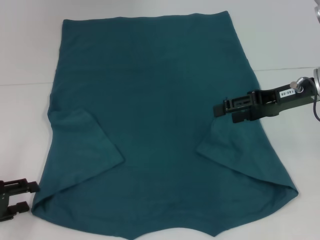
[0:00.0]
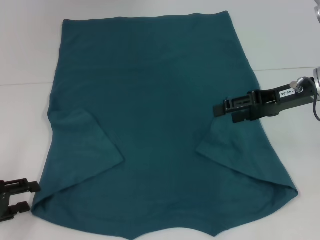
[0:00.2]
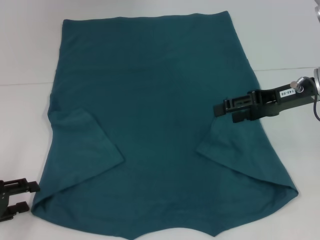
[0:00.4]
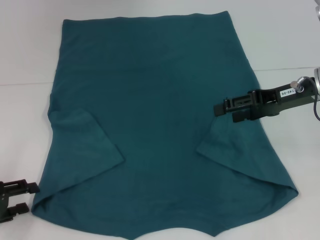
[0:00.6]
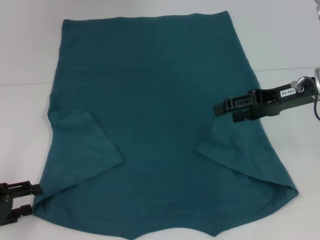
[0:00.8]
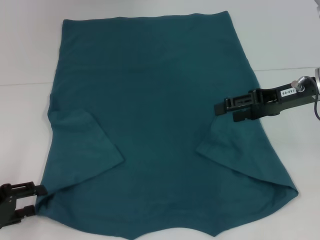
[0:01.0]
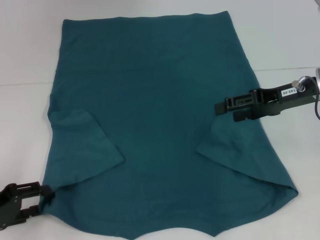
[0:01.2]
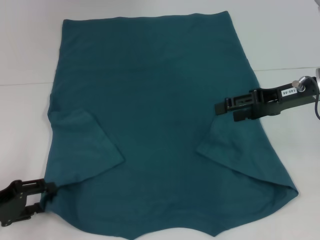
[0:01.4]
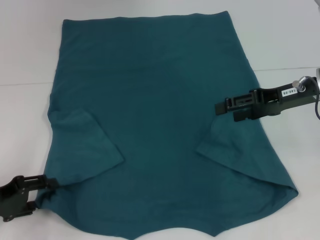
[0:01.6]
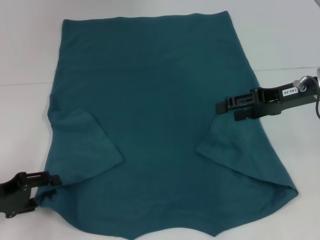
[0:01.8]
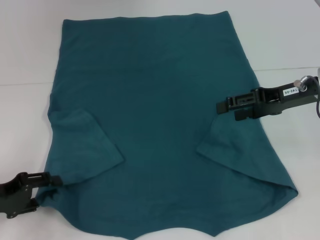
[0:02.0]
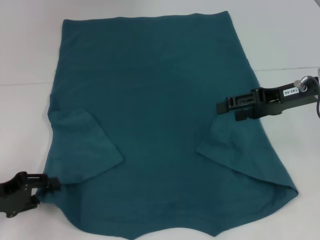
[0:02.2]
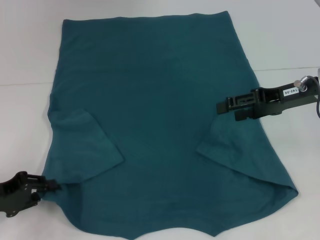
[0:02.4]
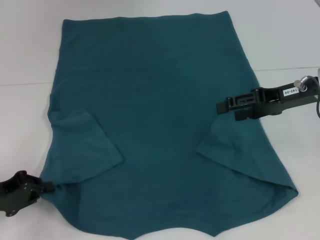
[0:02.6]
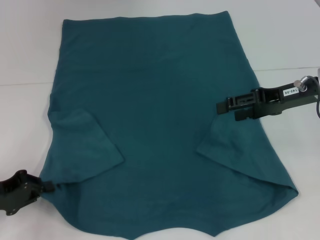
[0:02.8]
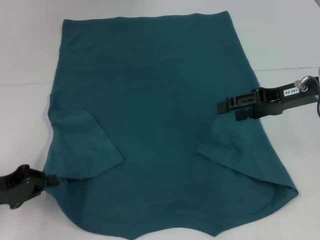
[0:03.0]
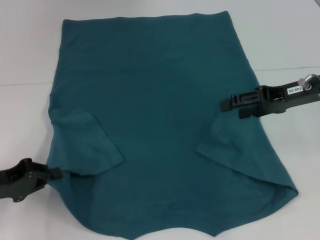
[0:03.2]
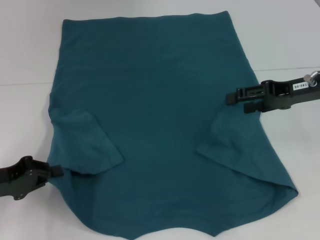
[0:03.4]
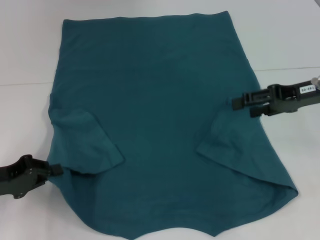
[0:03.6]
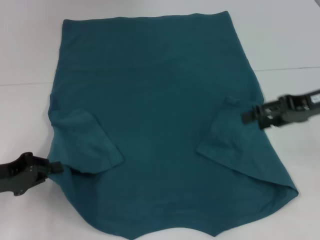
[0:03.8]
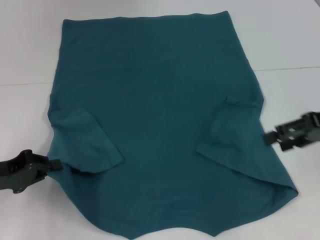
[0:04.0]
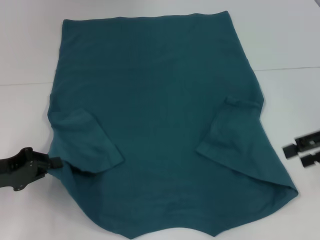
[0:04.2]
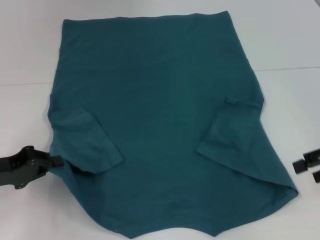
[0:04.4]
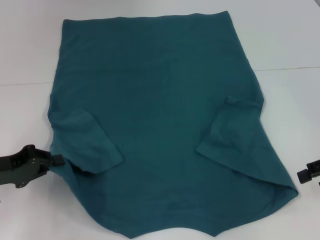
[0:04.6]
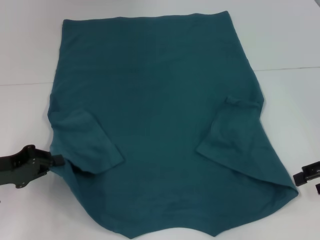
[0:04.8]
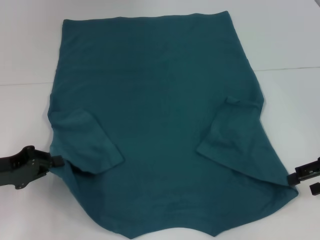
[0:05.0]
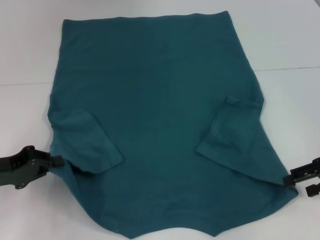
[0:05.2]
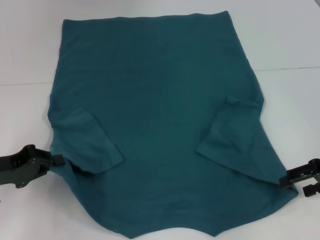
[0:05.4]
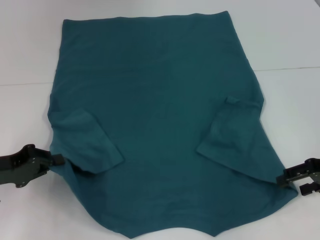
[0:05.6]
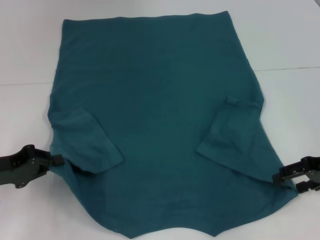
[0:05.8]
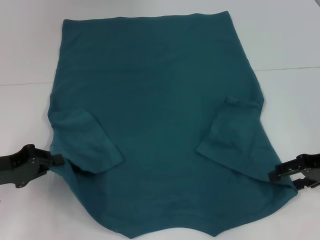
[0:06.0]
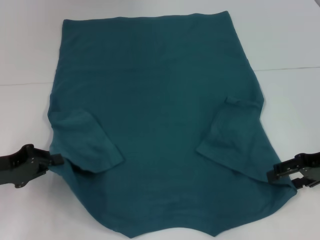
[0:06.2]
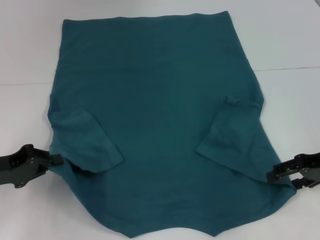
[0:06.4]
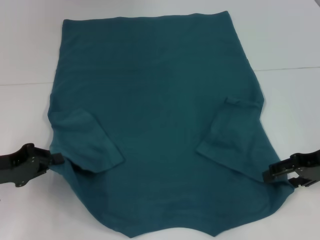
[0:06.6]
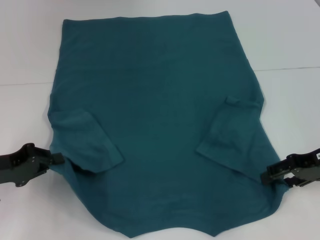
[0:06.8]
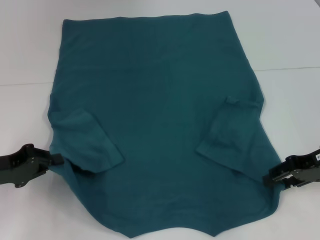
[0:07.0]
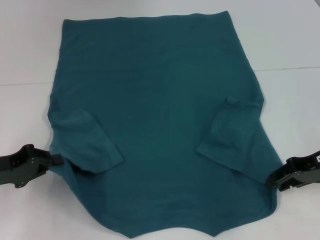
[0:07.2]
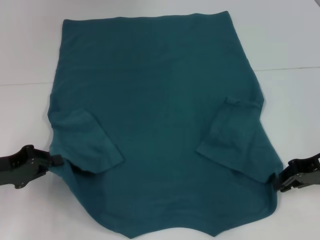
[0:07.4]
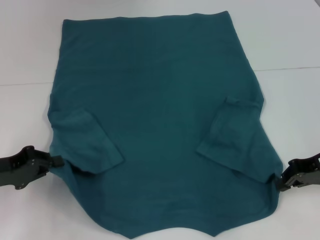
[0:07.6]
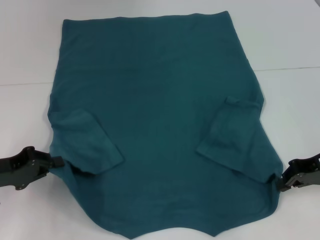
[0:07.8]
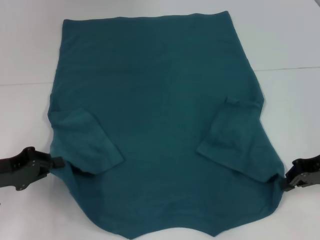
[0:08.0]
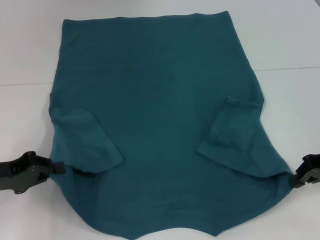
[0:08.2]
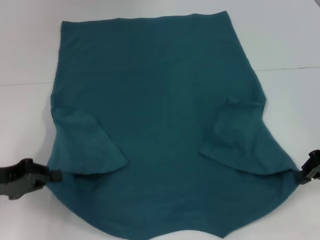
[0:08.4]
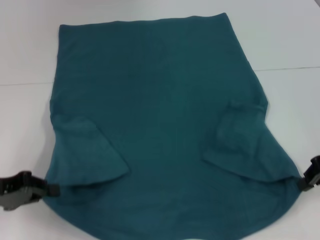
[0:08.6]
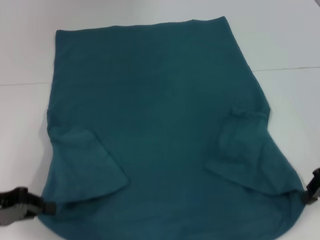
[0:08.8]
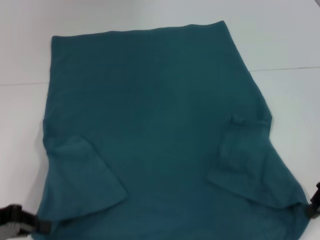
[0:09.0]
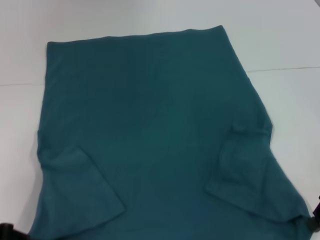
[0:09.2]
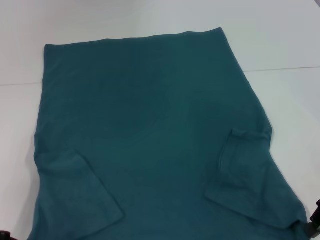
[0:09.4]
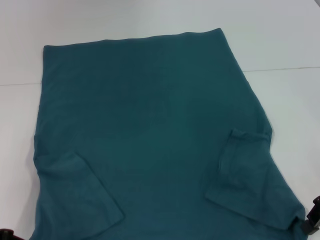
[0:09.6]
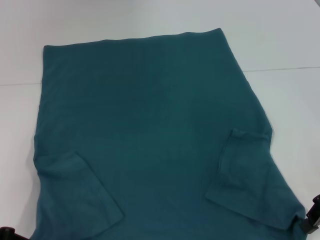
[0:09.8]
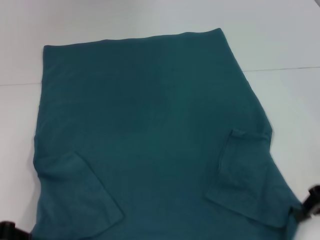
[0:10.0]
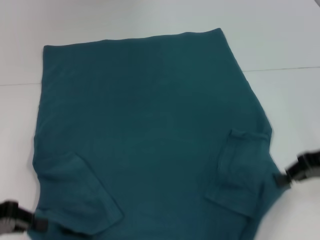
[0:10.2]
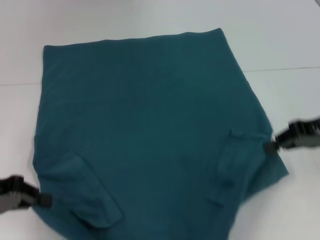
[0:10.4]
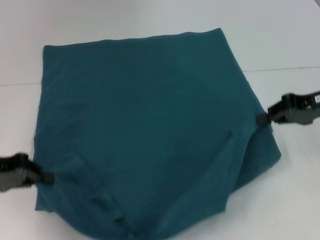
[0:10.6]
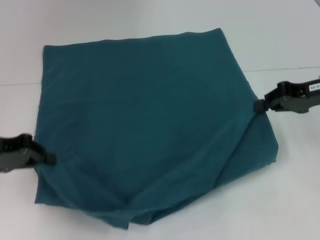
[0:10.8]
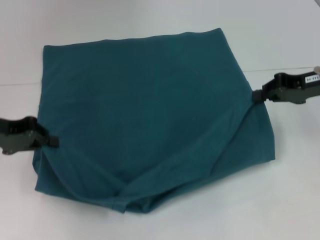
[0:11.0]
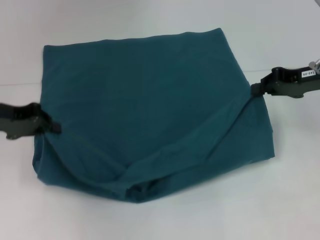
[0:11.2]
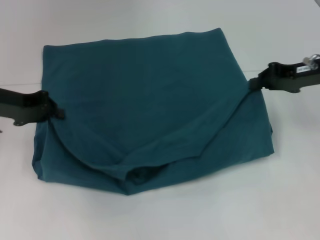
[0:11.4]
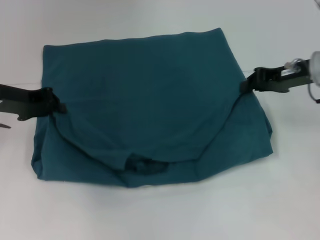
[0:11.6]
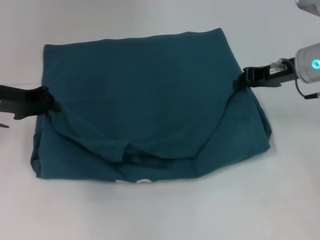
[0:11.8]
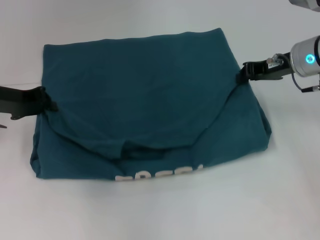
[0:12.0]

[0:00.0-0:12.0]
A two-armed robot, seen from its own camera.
Step, 0:00.0 to 0:03.0: Grab the bottom left corner with your left hand.
Step, 0:03.2 to 0:08.2: Grab the bottom right corner with your right hand.
0:00.0 to 0:01.6: The grippers make only small movements.
0:01.6 to 0:03.0: The left gripper closes.
0:03.0 to 0:04.4: The right gripper is displaced to the right and backward by some 10 cm.
0:04.4 to 0:06.0: The right gripper changes place by approximately 5 cm.
0:06.0 to 0:07.6: The right gripper closes.
0:10.4 to 0:12.0: The right gripper shifts approximately 10 cm forward and to the left. Meanwhile the left gripper moves forward, about 10 cm.

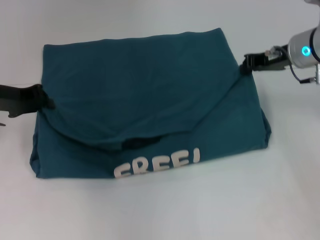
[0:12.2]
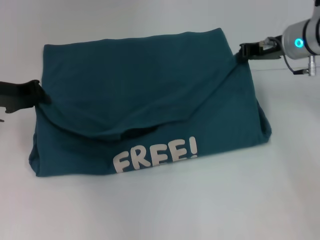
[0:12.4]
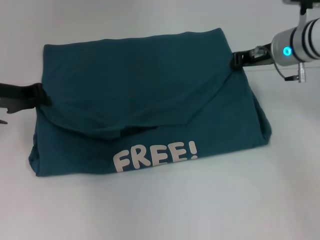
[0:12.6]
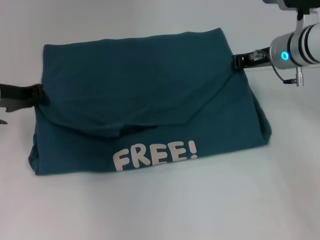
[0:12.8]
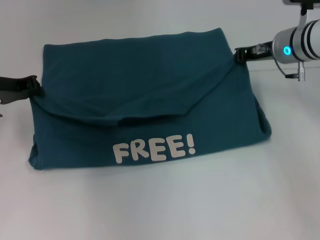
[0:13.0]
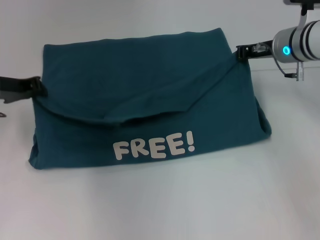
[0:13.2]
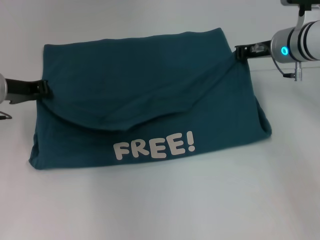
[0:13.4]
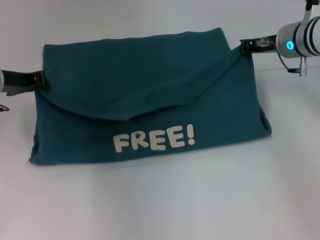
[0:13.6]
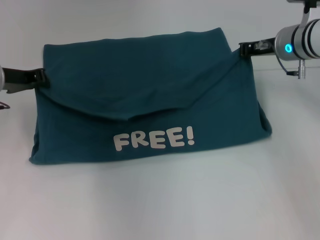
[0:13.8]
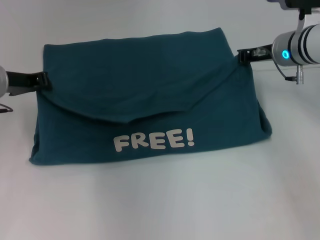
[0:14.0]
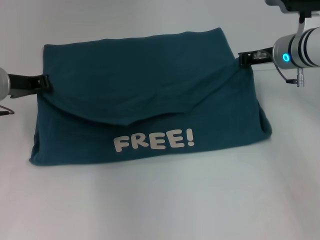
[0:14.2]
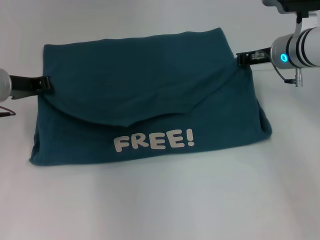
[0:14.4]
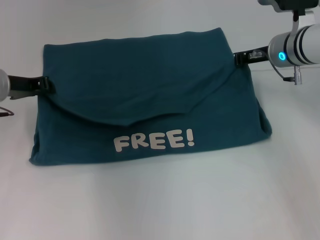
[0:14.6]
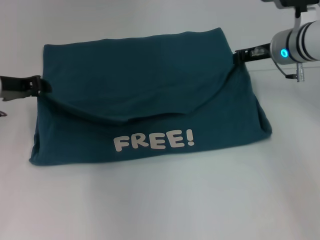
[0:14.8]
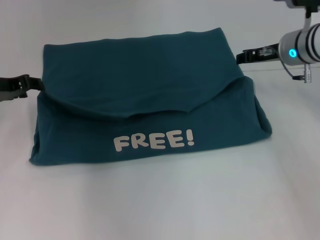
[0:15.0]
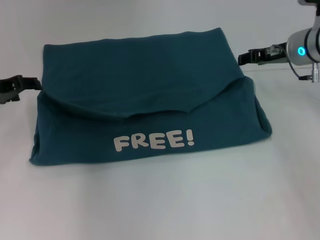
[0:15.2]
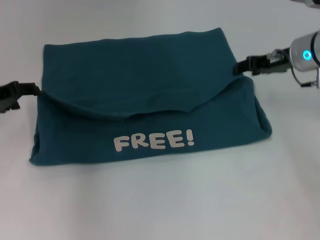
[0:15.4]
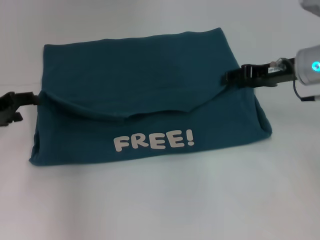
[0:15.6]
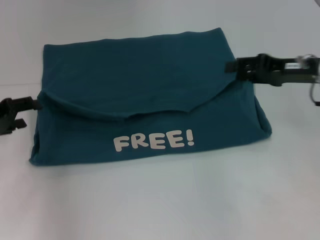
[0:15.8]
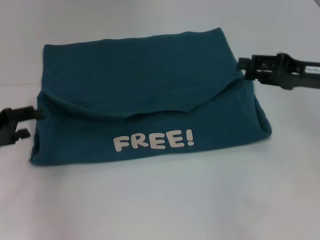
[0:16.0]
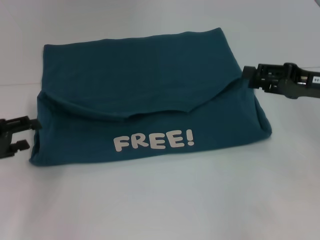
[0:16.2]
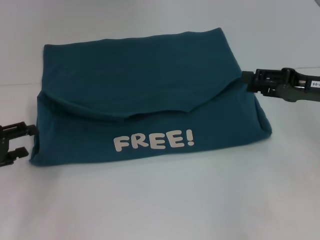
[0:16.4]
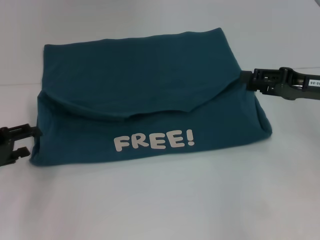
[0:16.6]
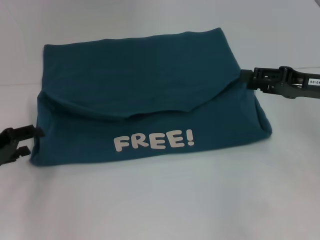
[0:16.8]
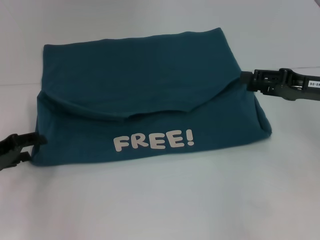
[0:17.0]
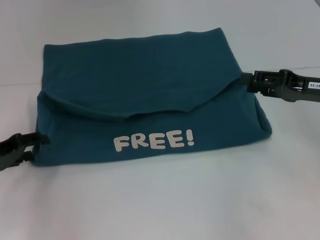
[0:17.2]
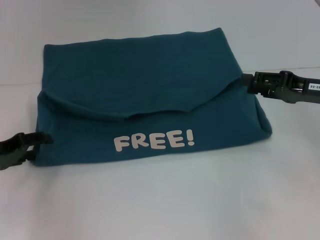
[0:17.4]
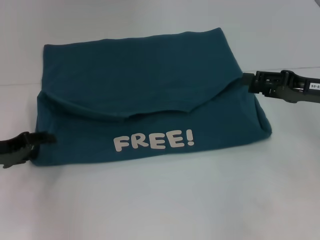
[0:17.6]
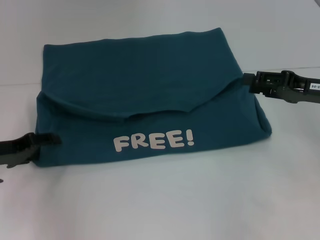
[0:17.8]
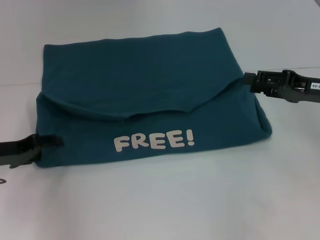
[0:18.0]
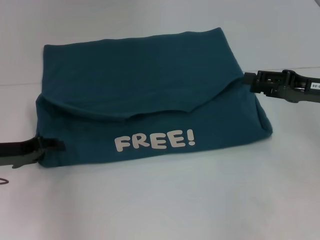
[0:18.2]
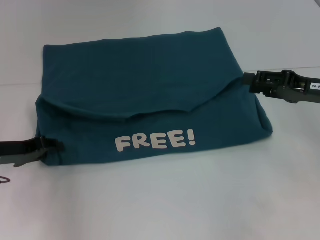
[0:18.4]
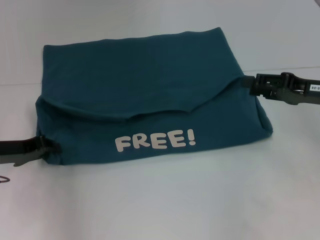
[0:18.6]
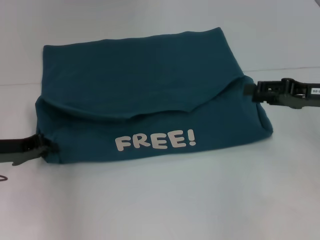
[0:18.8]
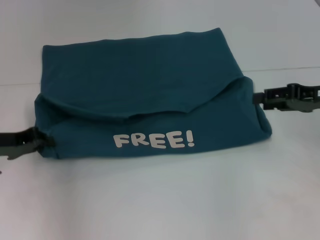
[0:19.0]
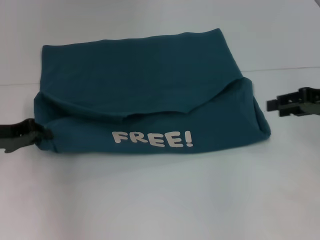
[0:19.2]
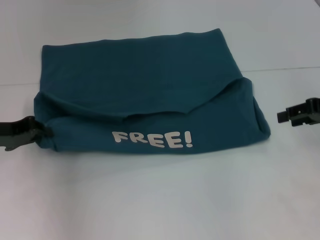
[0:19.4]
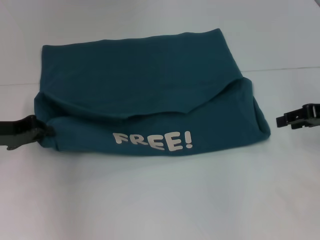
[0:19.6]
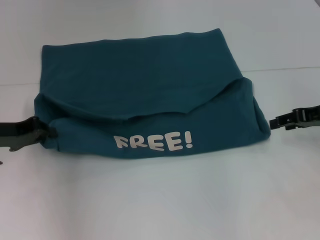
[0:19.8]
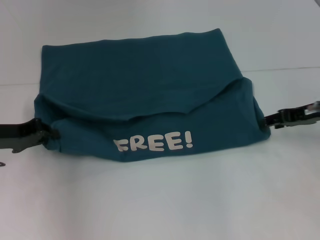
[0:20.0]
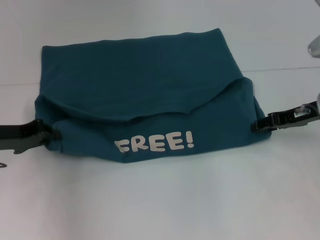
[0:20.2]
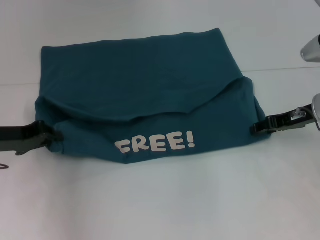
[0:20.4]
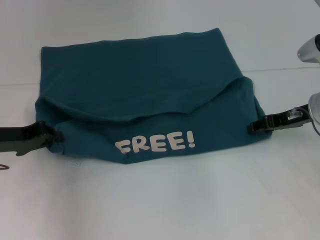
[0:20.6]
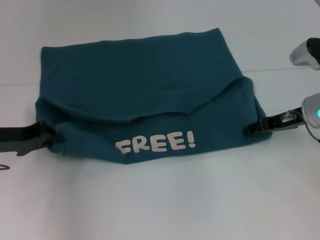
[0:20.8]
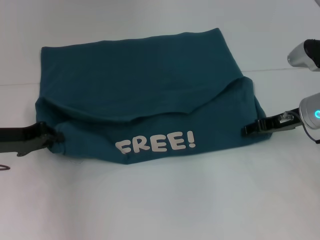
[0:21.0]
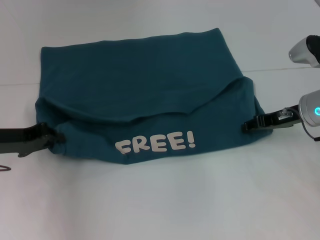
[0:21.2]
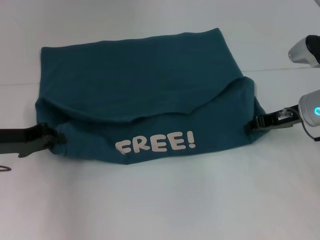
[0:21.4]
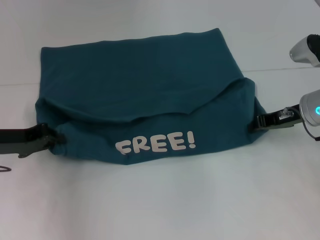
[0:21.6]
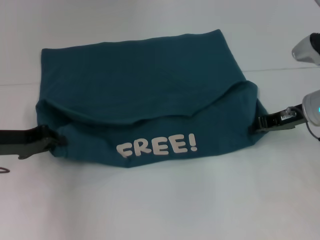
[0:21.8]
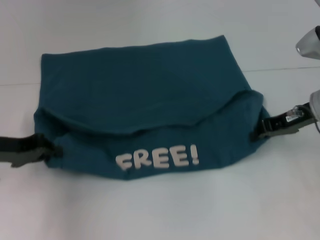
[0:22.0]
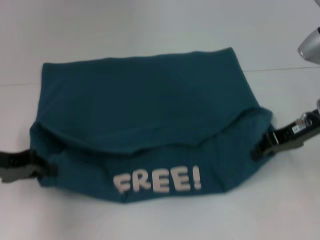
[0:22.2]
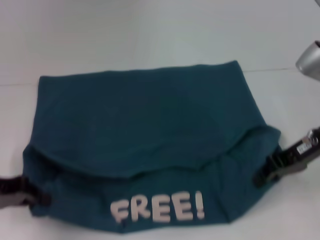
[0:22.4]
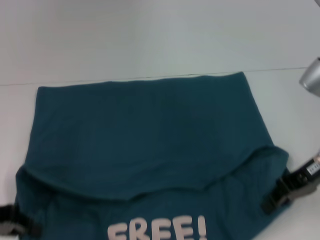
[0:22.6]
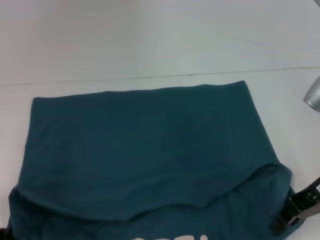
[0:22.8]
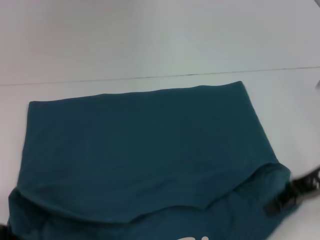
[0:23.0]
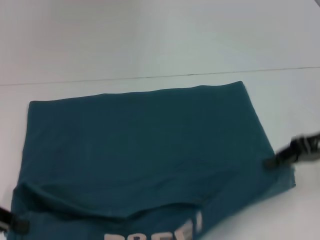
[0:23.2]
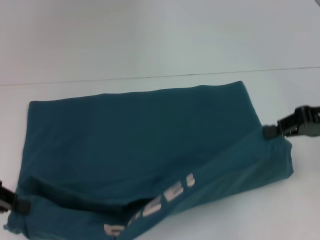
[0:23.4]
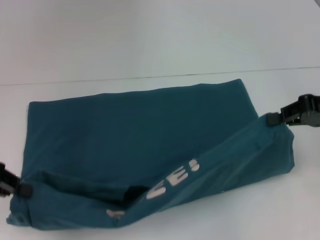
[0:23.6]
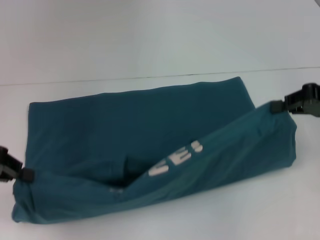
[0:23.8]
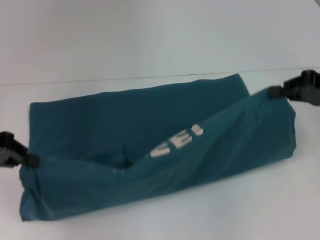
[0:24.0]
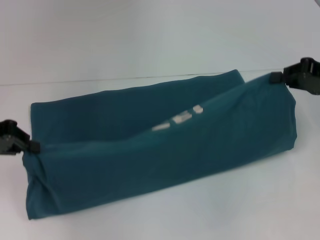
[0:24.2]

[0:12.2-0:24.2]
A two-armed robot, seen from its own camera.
Step, 0:12.2 to 0:15.2: Fold the clothes to the left.
Step, 0:12.2 to 0:15.2: Fold the clothes to the right.
Step, 0:15.4 to 0:22.6: Pull the clothes with your left hand.
Step, 0:15.4 to 0:22.6: Pull the clothes with your right hand.
0:12.2 to 0:13.8: There are only small adjustments of the grippers.
0:13.8 to 0:15.2: The left gripper opens up. The right gripper opens.
0:15.2 to 0:16.6: The right gripper shifts some 10 cm backward and to the right. Meanwhile the left gripper shifts about 10 cm backward and downward.
0:16.6 to 0:18.2: The left gripper ends up roughly 5 cm from where it was.
0:18.2 to 0:19.8: The left gripper closes its fingers.
0:19.8 to 0:21.2: The right gripper heads to the left, covering some 5 cm.
0:21.2 to 0:22.6: Both grippers travel together backward, about 5 cm. The right gripper closes.
0:22.6 to 0:24.2: The right gripper travels to the right by approximately 5 cm; the left gripper shifts approximately 10 cm forward and upward.
